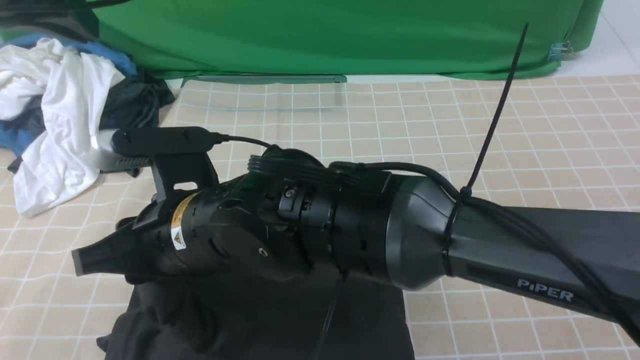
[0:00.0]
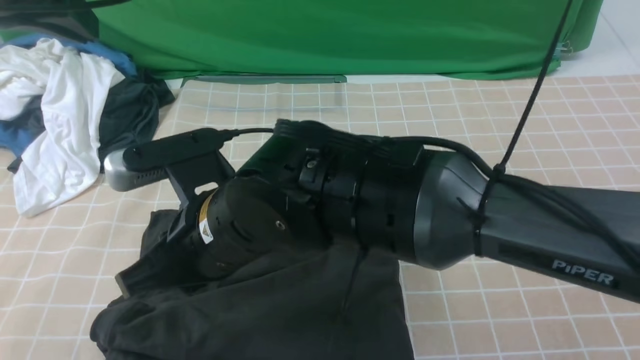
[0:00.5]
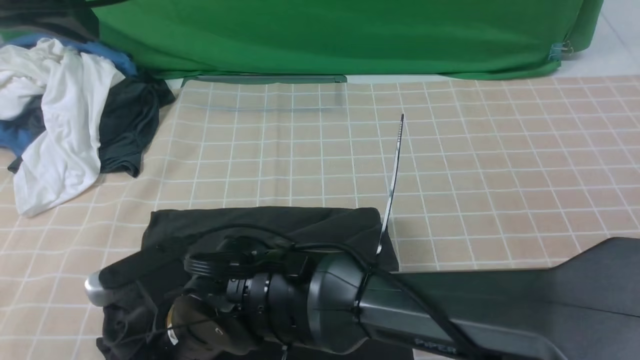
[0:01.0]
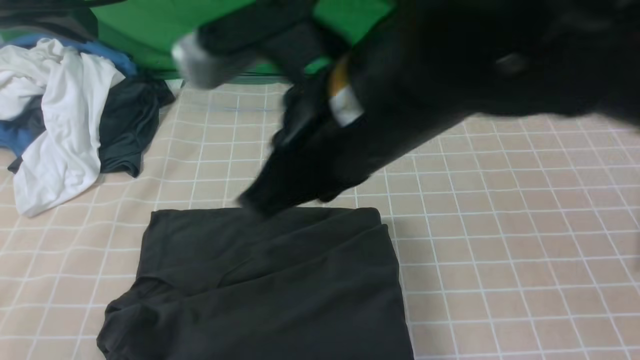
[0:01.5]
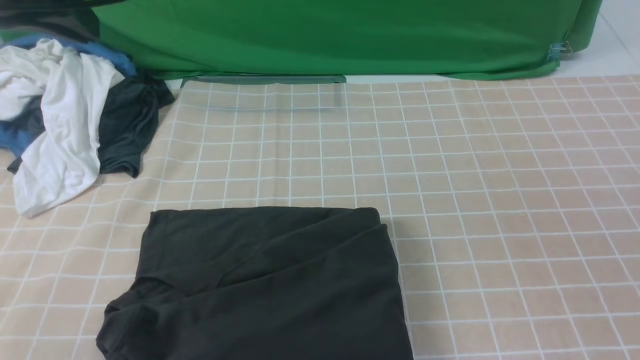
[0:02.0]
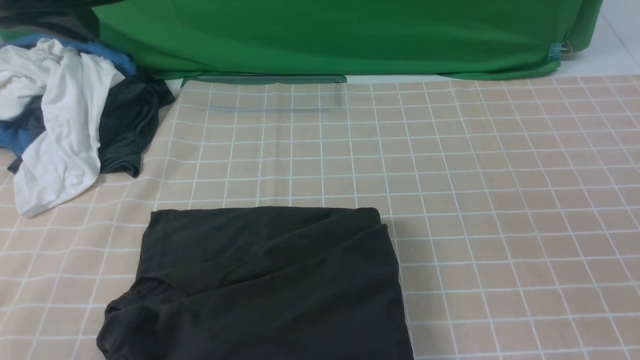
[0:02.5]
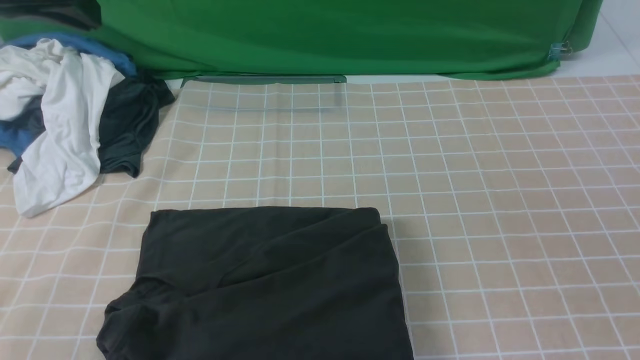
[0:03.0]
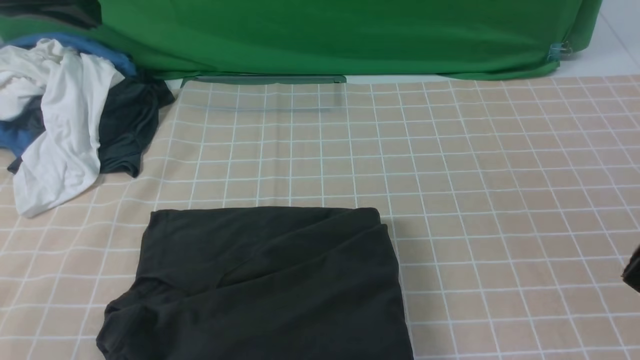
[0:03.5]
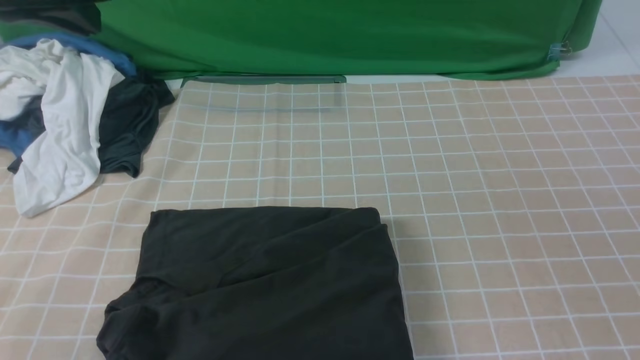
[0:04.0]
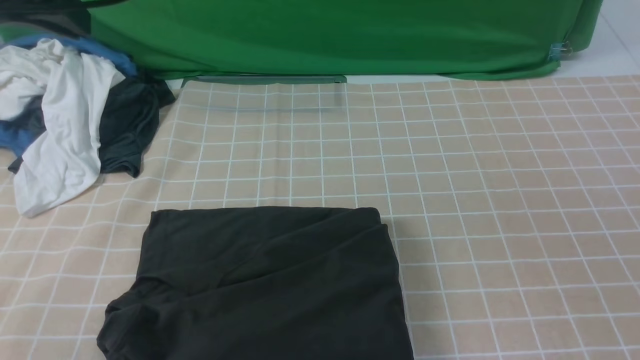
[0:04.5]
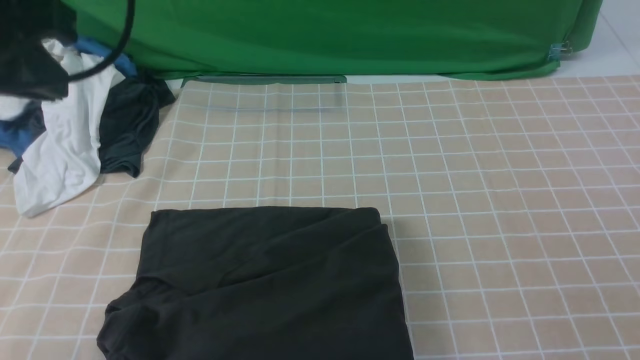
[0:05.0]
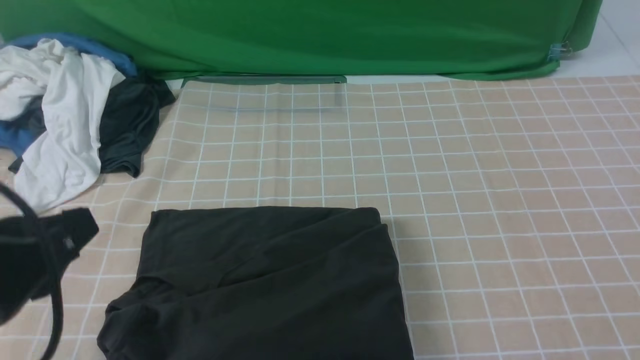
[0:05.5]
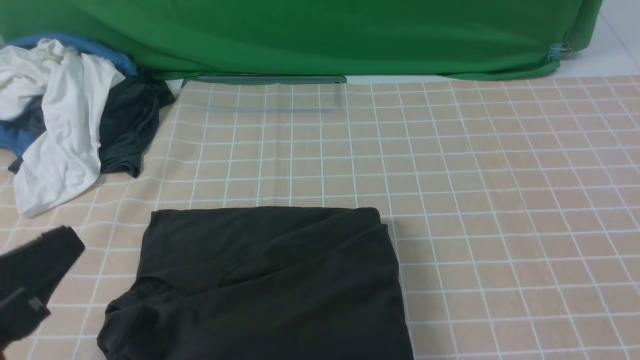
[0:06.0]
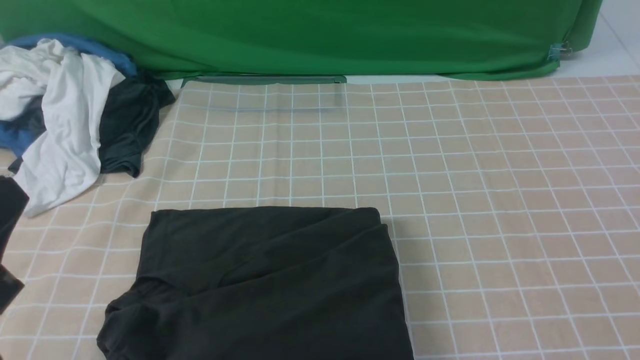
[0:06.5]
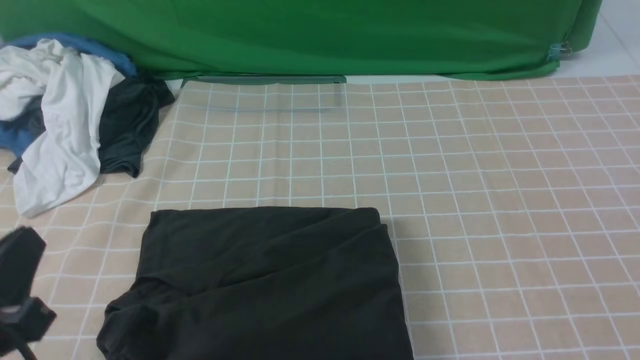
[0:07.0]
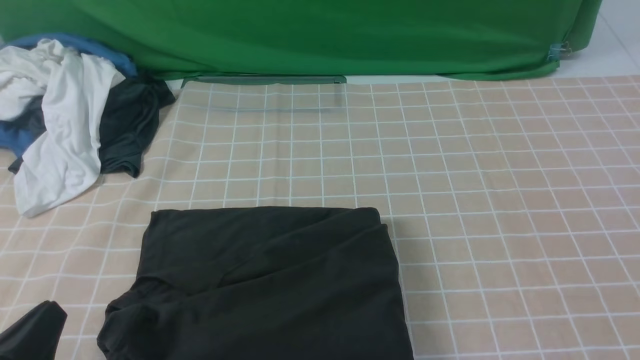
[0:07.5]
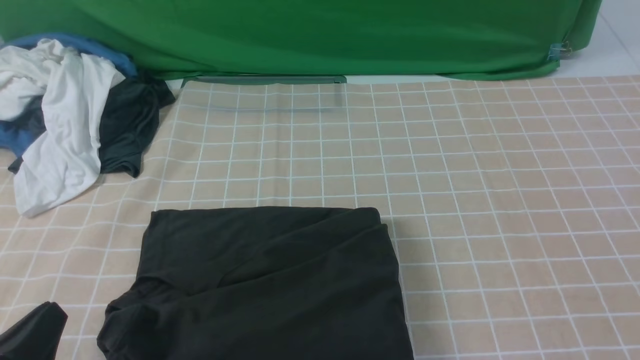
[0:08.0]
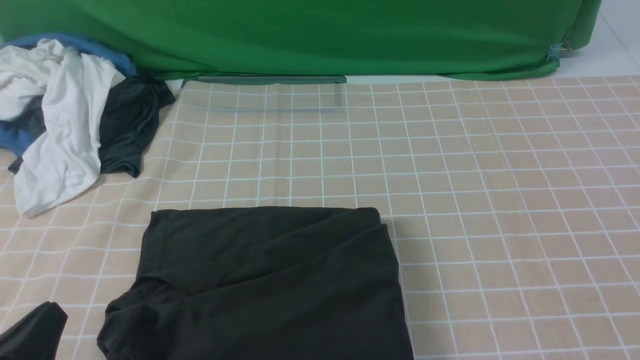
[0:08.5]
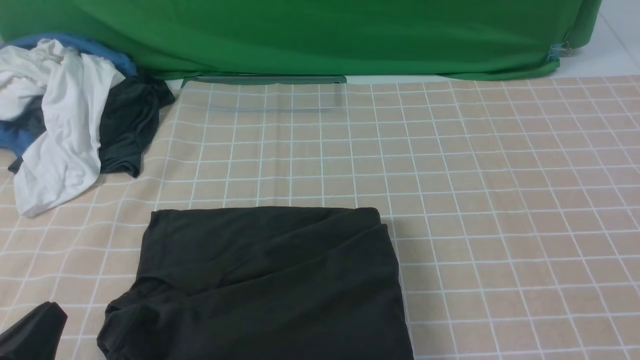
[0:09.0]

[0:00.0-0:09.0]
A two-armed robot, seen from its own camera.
0:00.0 to 0:02.0: The right gripper moves to the right, upward and backward, some 40 cm, and closes its fingers.
0:04.5 to 0:07.0: The left gripper is displaced backward and downward by some 30 cm.
0:07.0 to 0:09.0: The left gripper heads downward, covering about 5 cm.
